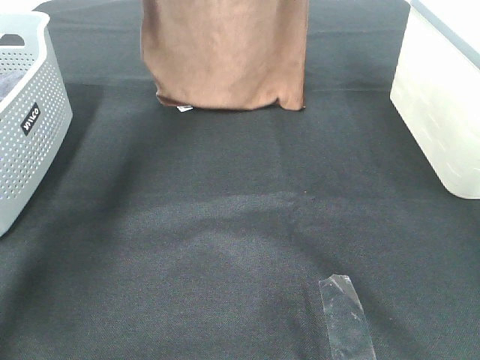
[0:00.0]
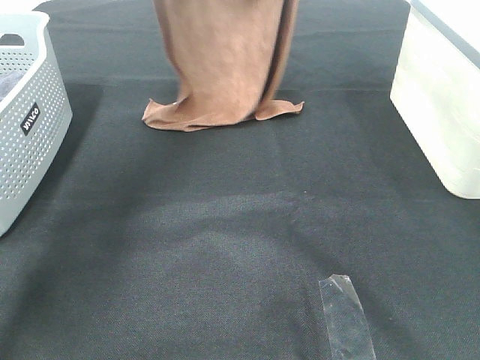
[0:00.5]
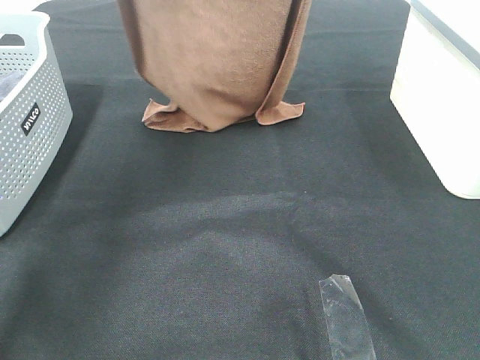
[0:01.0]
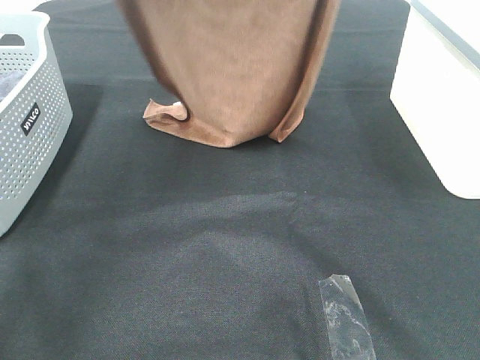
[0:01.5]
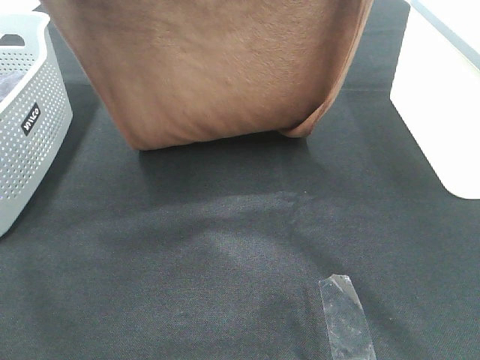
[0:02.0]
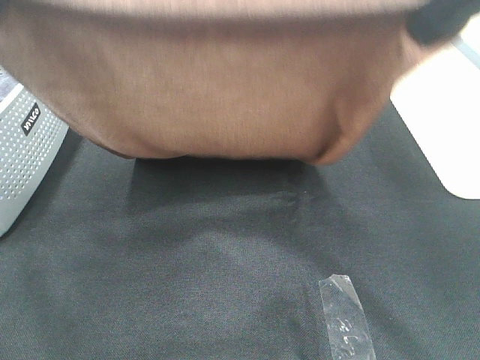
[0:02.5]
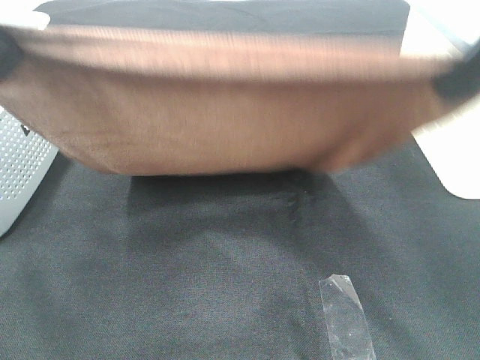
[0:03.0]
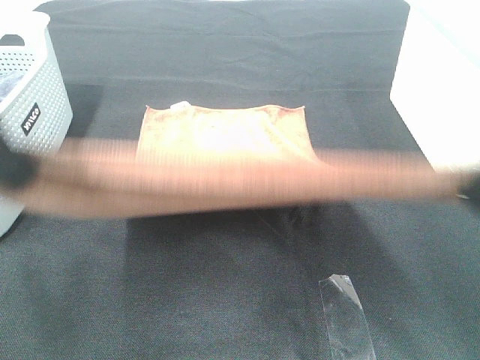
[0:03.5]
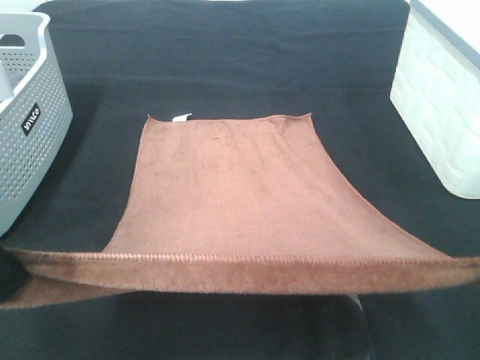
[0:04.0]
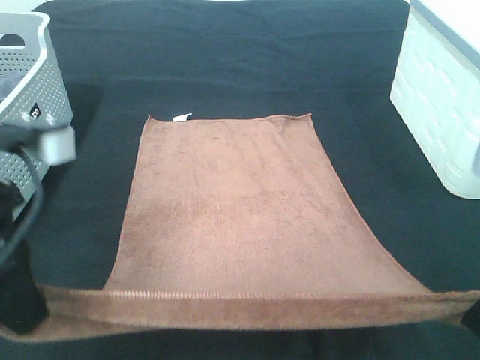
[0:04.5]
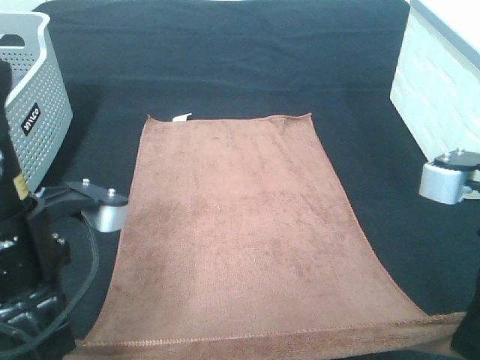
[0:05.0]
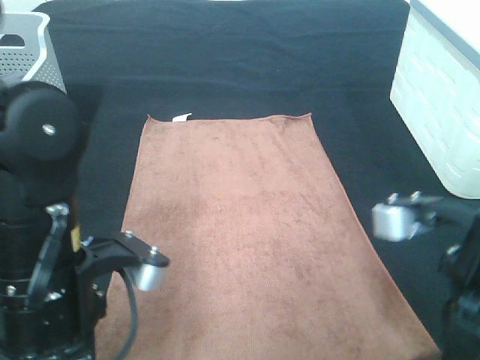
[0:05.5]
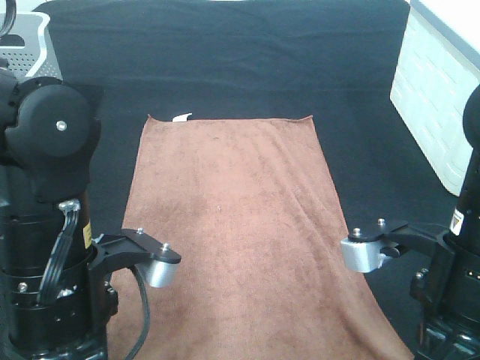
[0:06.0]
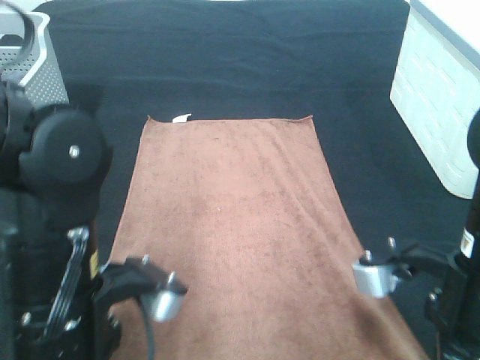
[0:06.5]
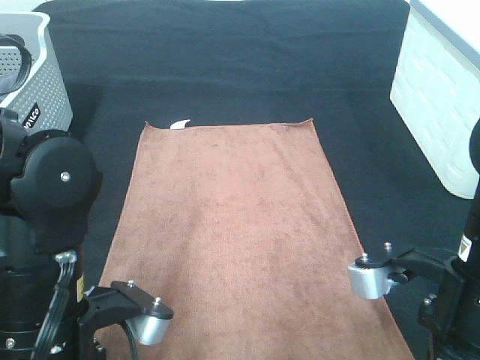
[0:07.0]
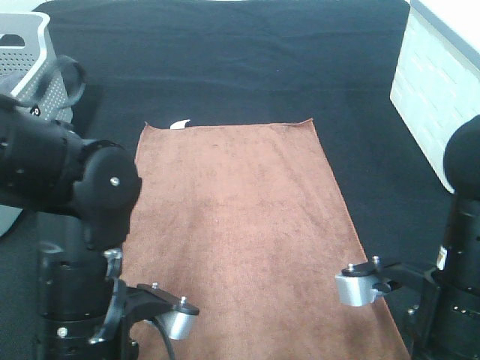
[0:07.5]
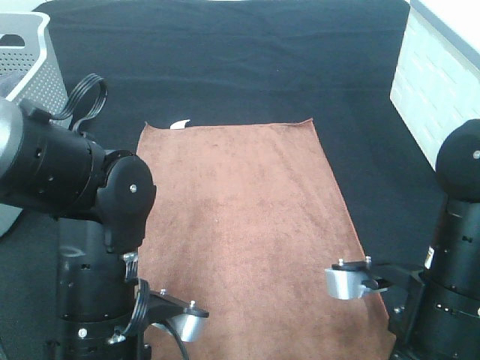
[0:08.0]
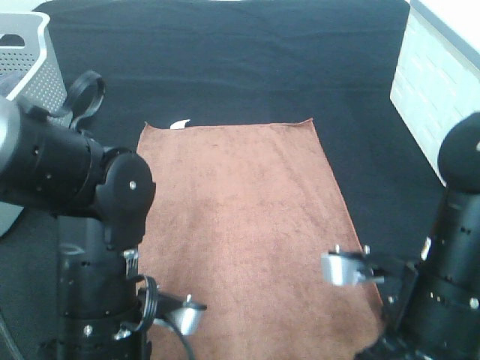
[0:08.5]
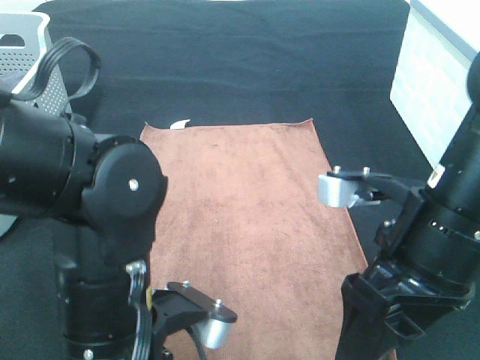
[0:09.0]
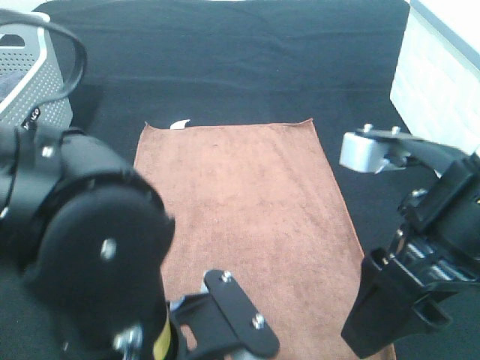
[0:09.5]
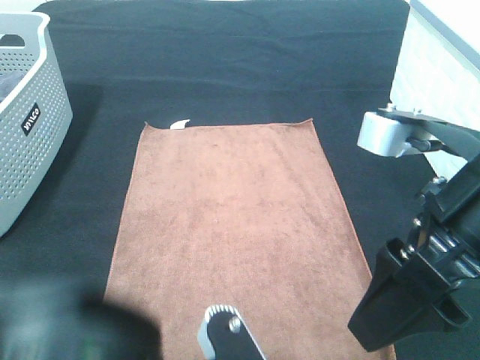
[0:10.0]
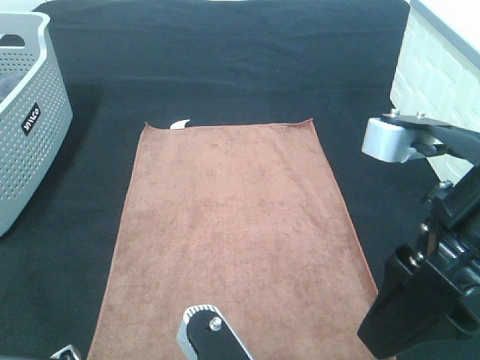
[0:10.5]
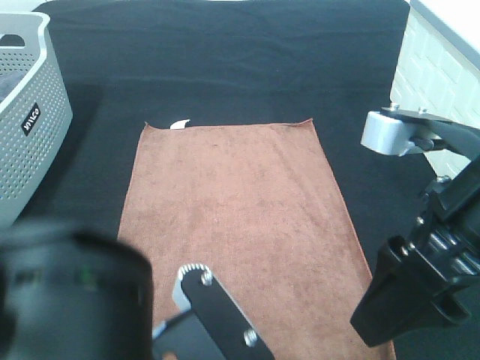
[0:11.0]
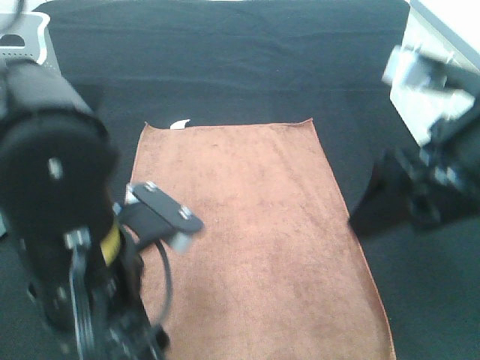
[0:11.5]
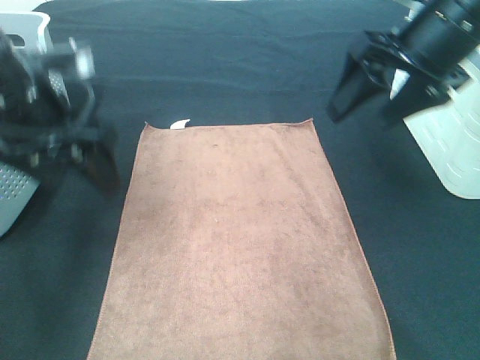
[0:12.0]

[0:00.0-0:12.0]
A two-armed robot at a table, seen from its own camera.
Task of the whole recording: Remove the towel and place it.
Step, 0.0 to 3.0 s: Left hand: spread the brown towel flat on the table.
Step, 0.0 to 3.0 s: Right hand: spread the brown towel flat on the table.
Step, 3.5 to 11.0 s: Right hand:adjust the brown towel.
0.0 to 2.0 s: The two grippers go roughly 25 cm backward.
2.0 to 4.0 s: The left gripper heads downward and backward, covering roughly 20 cm; the right gripper heads backward and downward, covering some 25 cm.
4.0 to 6.0 s: The left gripper goes roughly 15 cm downward and to the right. The right gripper travels downward and to the left by approximately 15 cm.
6.0 to 8.0 s: The left gripper goes some 5 cm downward.
8.0 to 10.0 s: The left gripper heads backward, upward and to the right, covering roughly 15 cm, and opens its fingers. Meanwhile the right gripper moves upward, roughly 10 cm, and opens up.
10.0 to 12.0 s: The right gripper goes approximately 20 cm forward; the left gripper shifts roughly 30 cm forward and to the left.

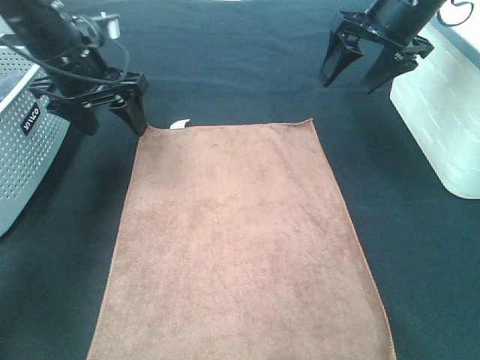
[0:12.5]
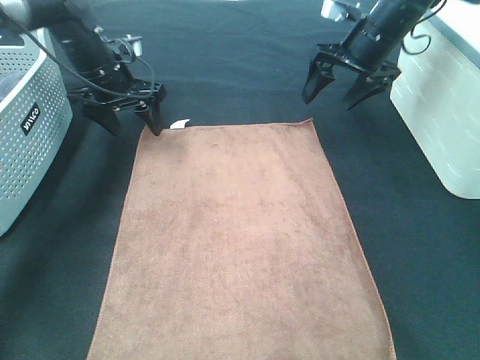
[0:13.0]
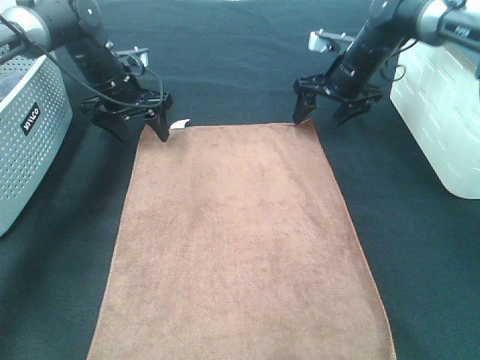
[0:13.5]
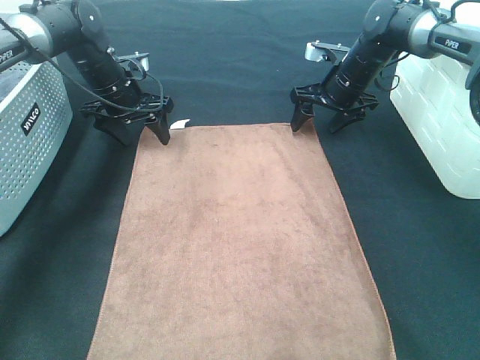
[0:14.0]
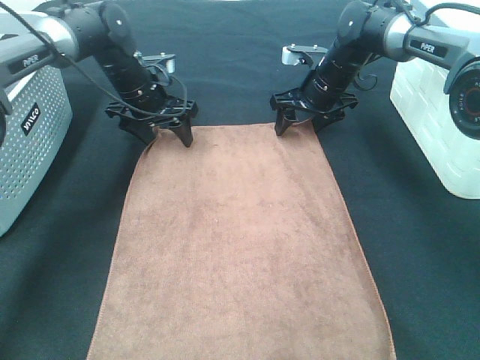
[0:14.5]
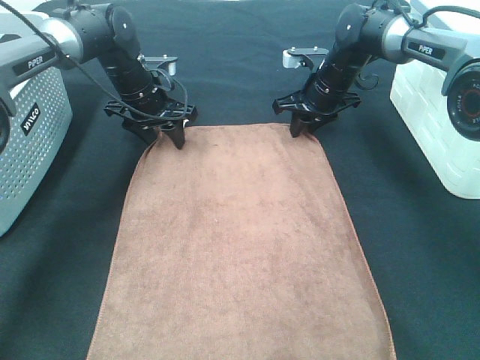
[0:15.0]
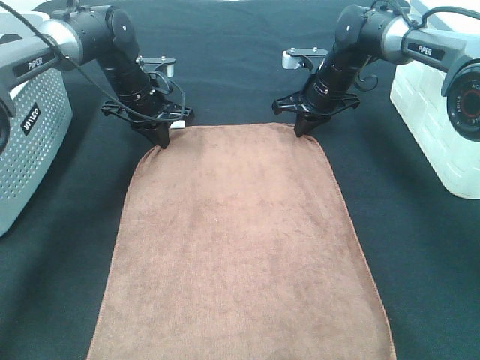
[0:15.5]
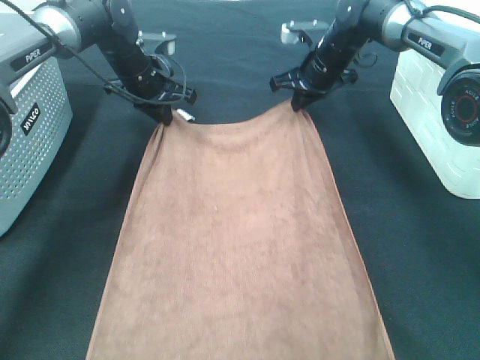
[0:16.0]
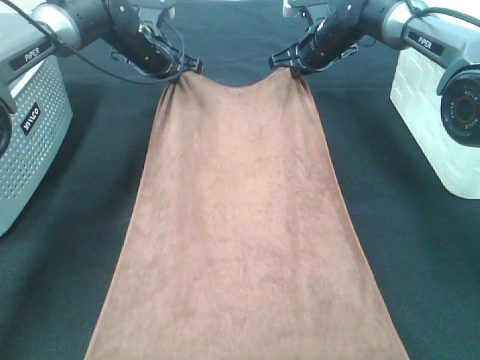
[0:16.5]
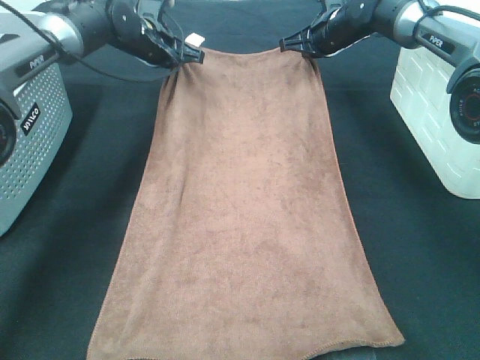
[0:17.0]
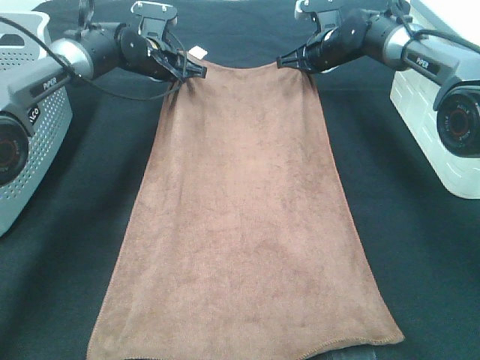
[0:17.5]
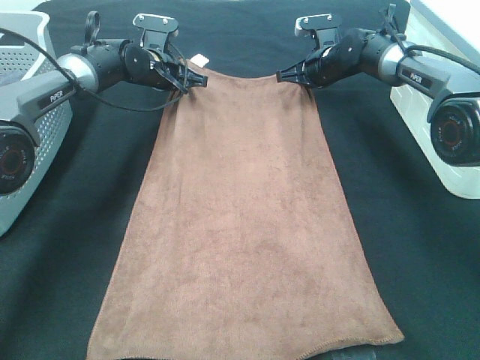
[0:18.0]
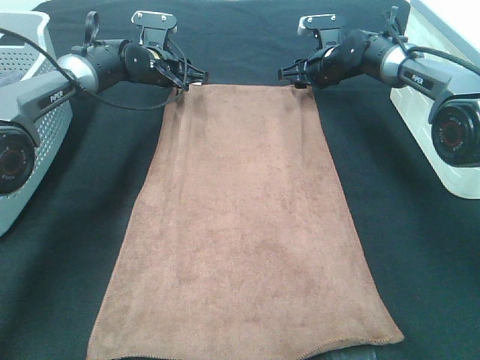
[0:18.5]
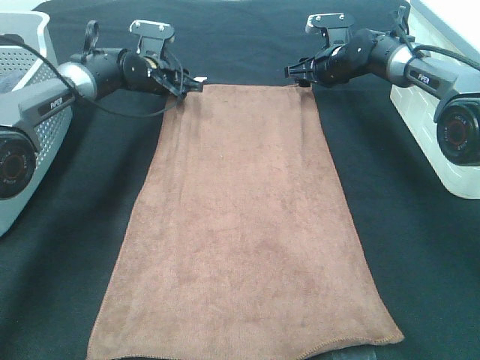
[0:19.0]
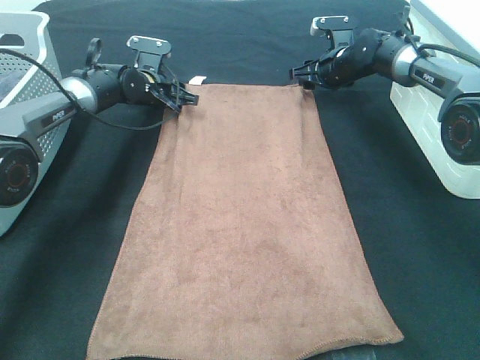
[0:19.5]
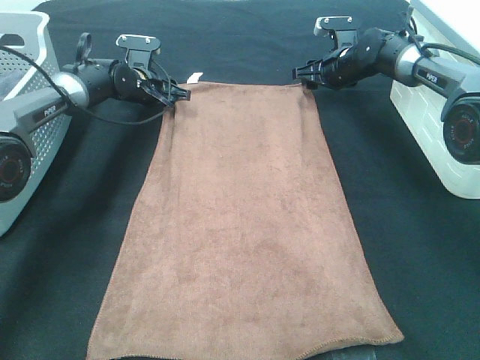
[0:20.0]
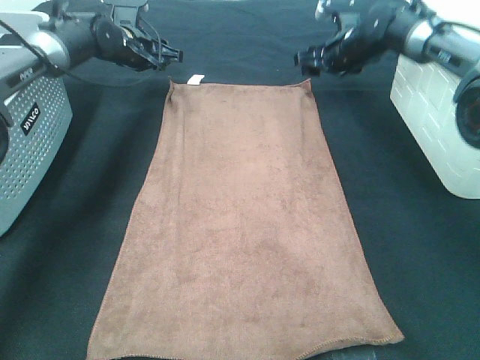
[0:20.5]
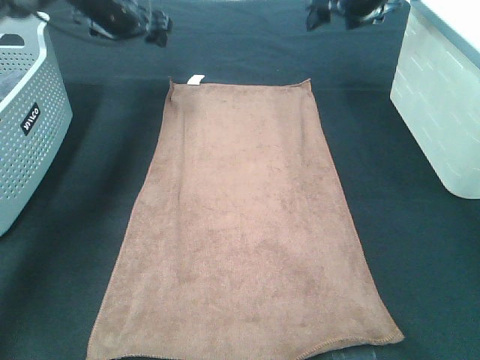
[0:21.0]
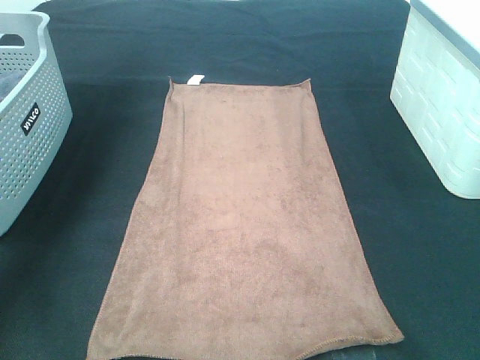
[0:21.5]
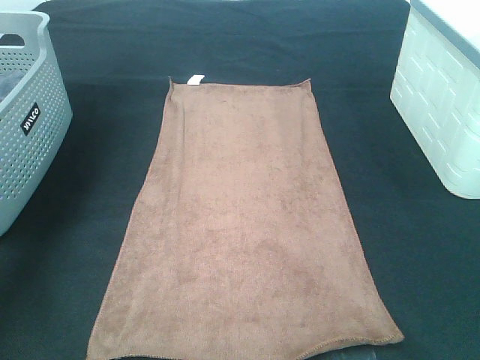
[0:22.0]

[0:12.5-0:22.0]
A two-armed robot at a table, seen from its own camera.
Task of the whole recording: Remove the towel and place it.
12.5 to 14.5 s: The two grippers go roughly 15 cm downward and forward.
14.5 to 16.5 s: The left gripper moves roughly 5 cm, and closes its fingers. Meanwhile the right gripper changes place by about 5 cm, and closes.
16.5 to 18.0 s: The two grippers go approximately 5 cm downward.
18.0 to 20.0 s: The left gripper opens up, while the right gripper opens up.
20.0 to 22.0 s: The left gripper shifts some 35 cm upward, backward and to the left; the right gripper goes roughly 40 cm upward and backward.

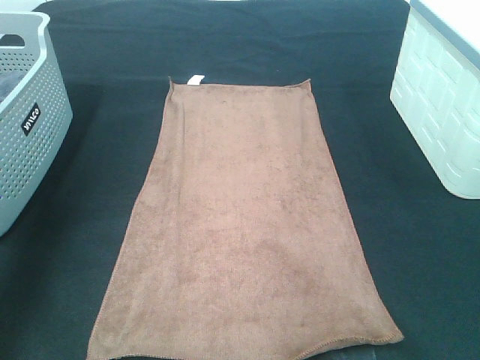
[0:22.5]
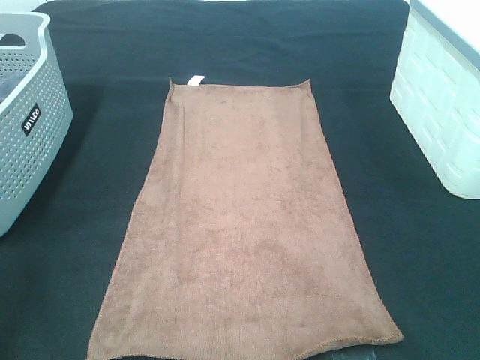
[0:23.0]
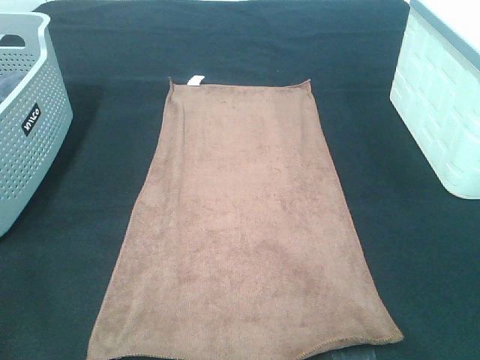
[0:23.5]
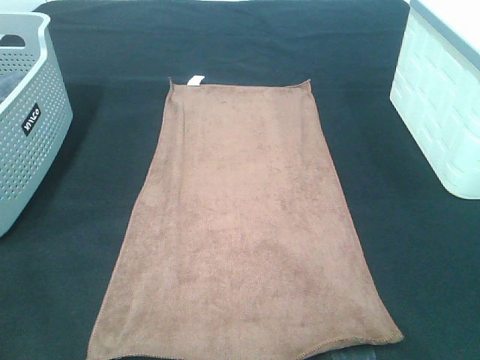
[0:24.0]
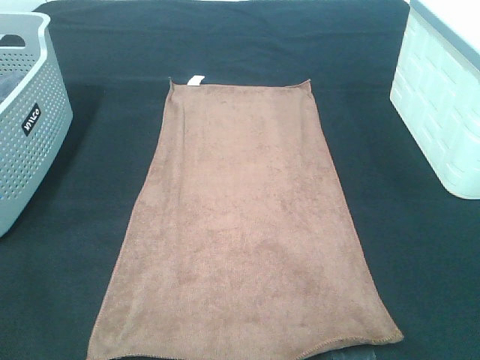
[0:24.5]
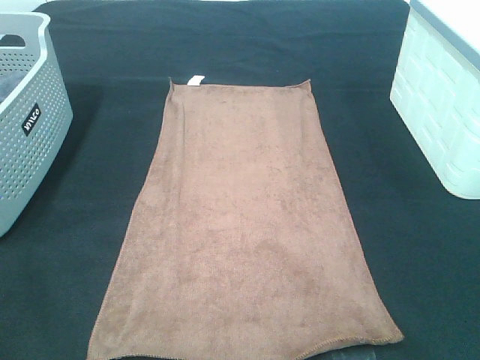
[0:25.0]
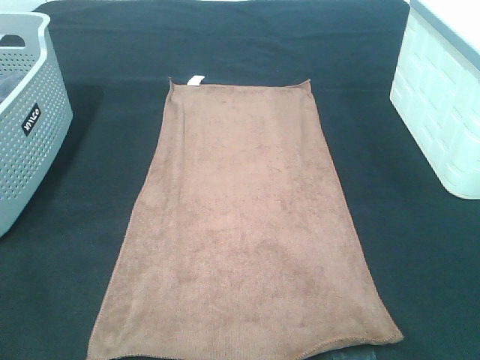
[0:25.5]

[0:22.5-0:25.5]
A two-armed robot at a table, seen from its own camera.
Task of the whole recording: Remove the towel and place it.
22.5 to 24.0 s: The two grippers go about 25 cm backward and downward.

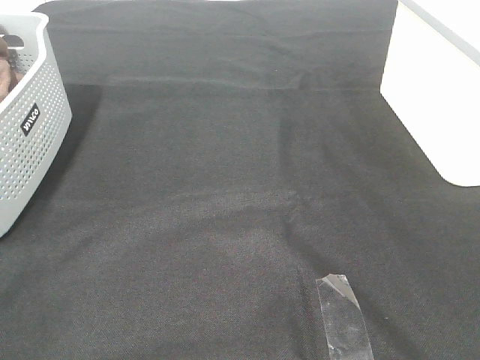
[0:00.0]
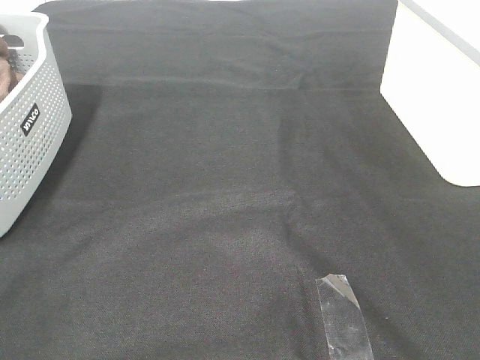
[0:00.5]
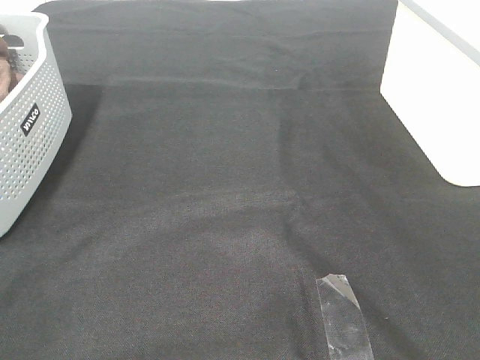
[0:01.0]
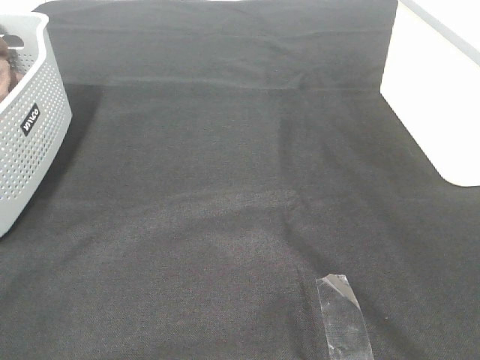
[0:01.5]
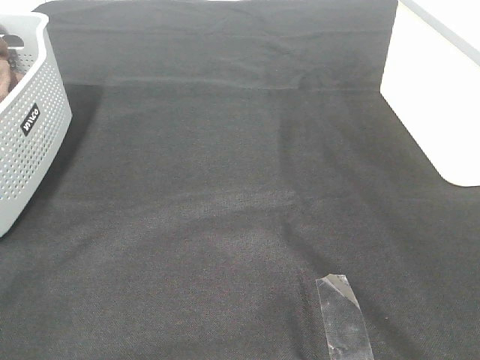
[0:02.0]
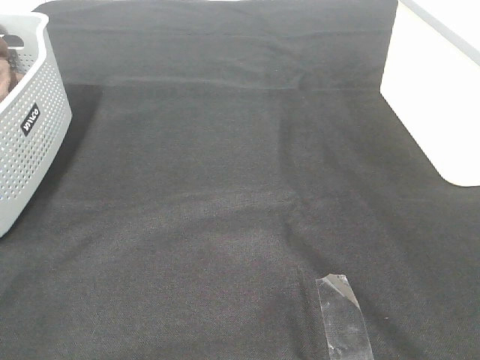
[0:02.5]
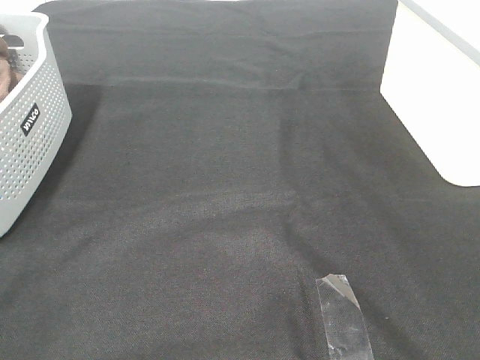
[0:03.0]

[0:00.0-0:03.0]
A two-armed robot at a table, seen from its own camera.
Task of the whole recording: Remove the towel and place it.
0.0 to 3.0 s: Neither gripper changes place.
